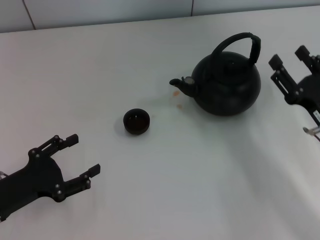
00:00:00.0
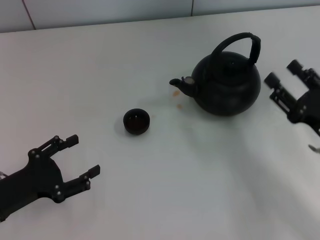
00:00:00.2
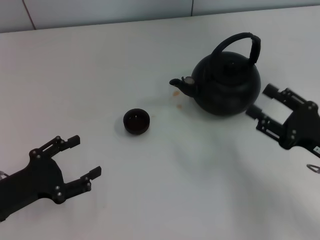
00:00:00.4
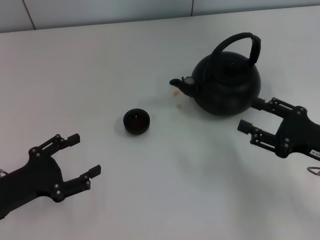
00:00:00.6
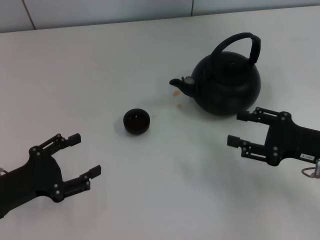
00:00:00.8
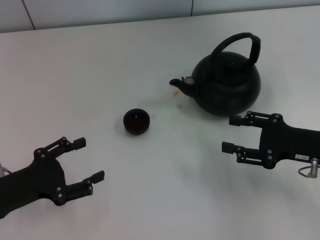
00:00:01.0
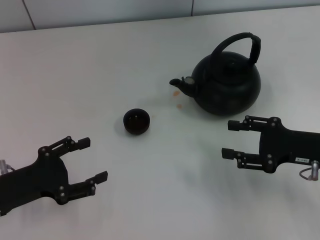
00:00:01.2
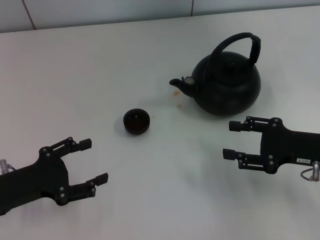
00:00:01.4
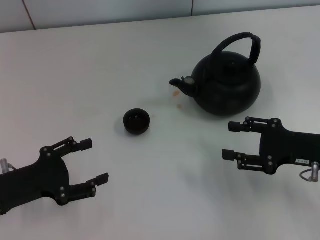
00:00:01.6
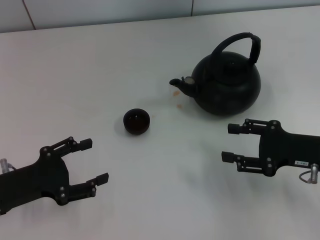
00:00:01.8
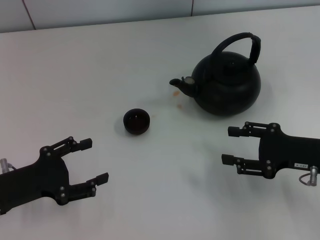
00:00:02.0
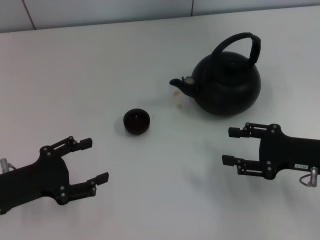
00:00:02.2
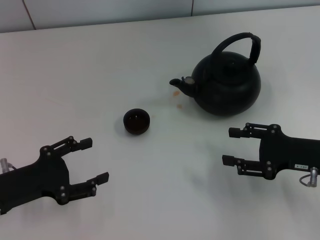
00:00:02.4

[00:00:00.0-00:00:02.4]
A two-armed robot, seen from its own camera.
Task of the whole recording: Grasp the handle of the teapot with one hand and pour tea into the teacup.
00:00:01.2 to 00:00:02.4: Neither gripper changes place.
